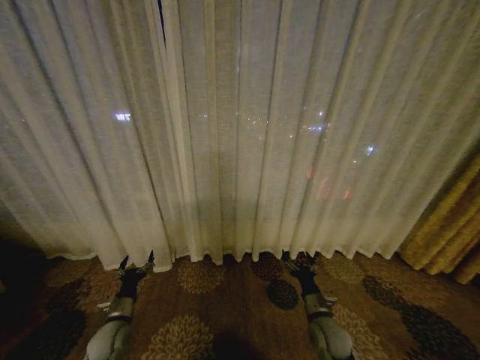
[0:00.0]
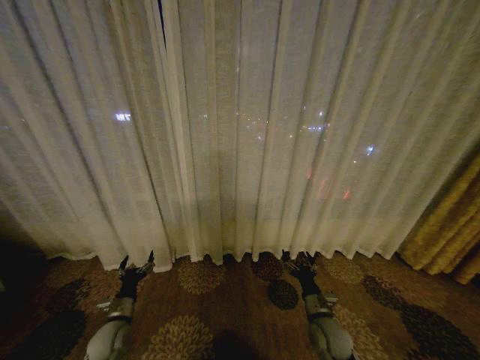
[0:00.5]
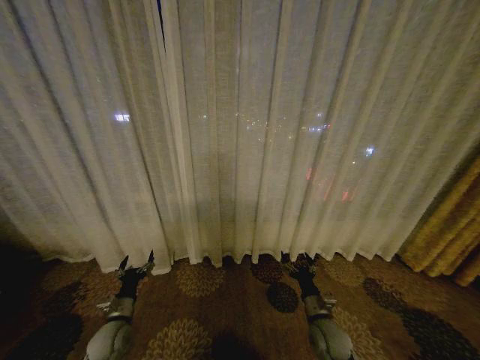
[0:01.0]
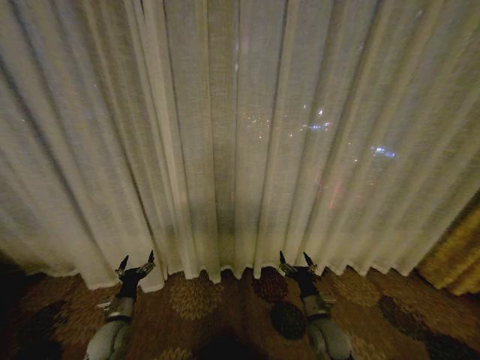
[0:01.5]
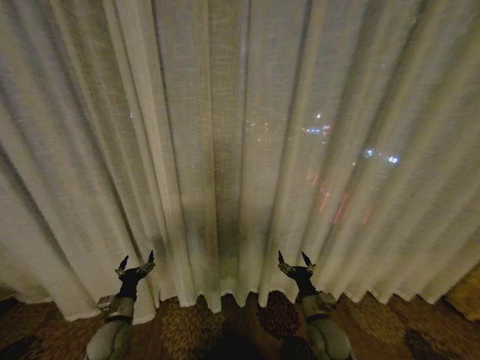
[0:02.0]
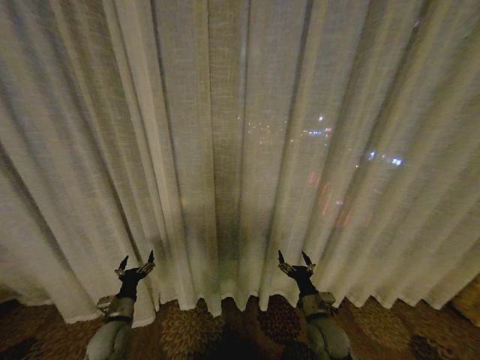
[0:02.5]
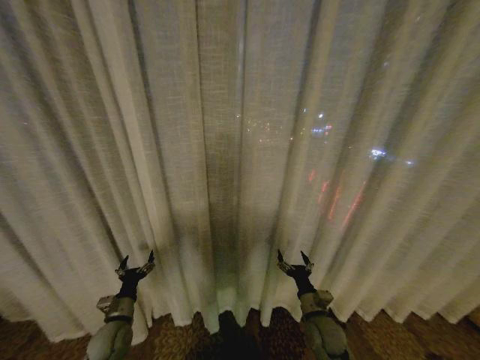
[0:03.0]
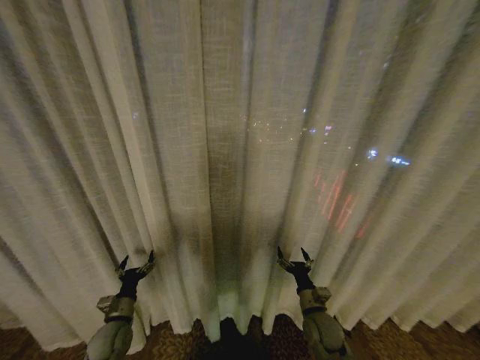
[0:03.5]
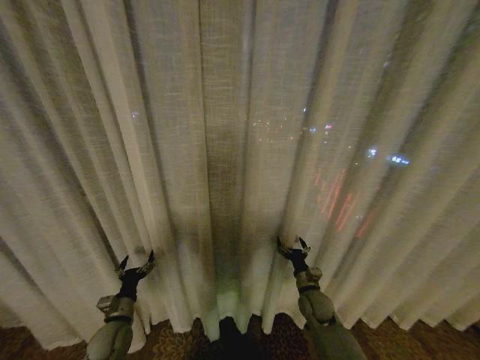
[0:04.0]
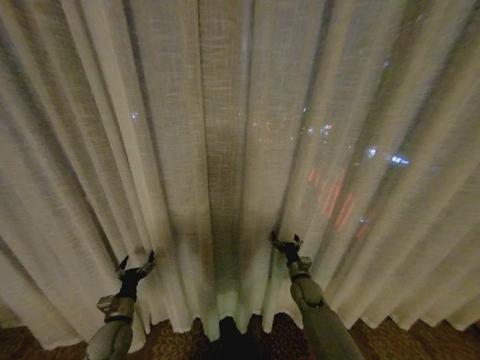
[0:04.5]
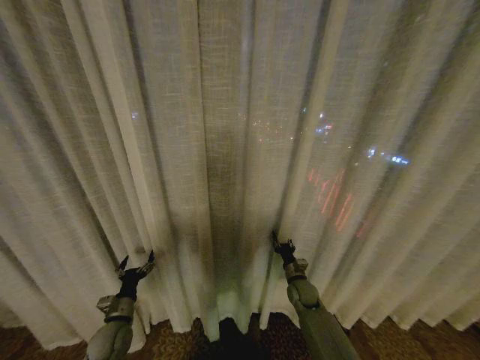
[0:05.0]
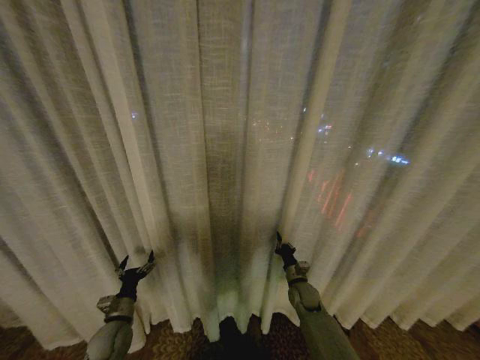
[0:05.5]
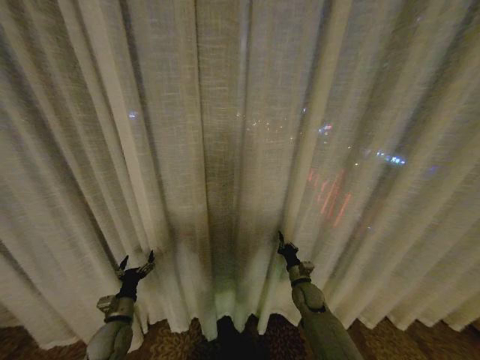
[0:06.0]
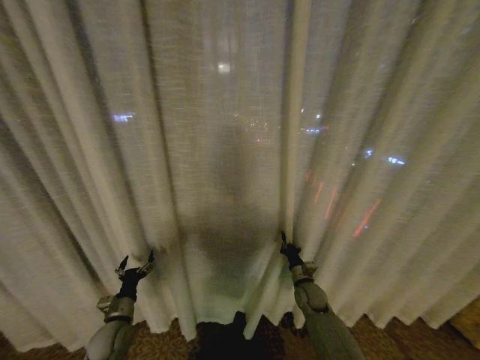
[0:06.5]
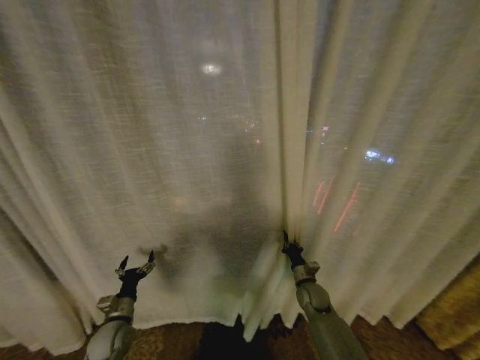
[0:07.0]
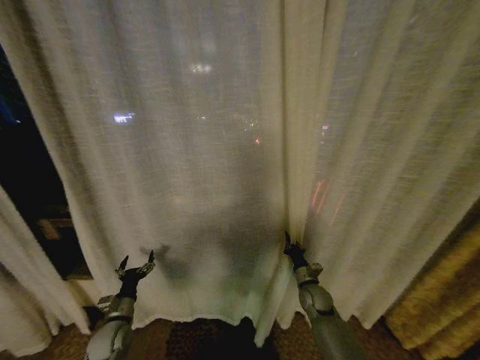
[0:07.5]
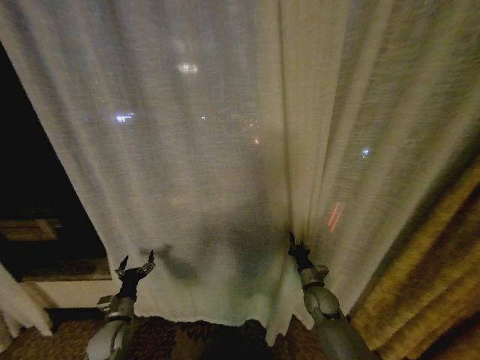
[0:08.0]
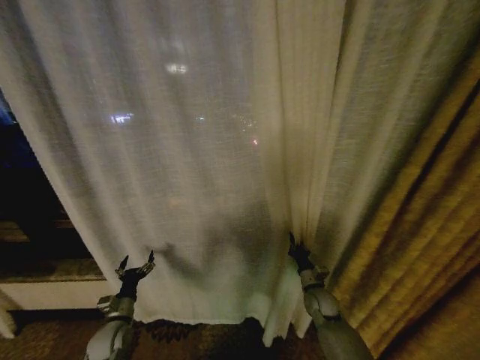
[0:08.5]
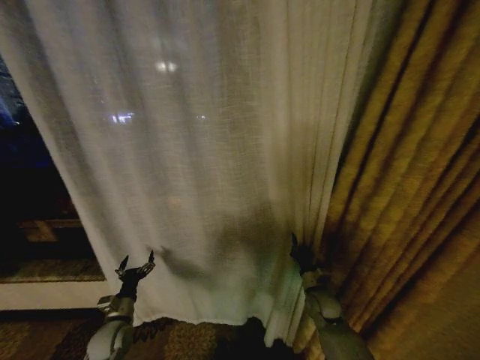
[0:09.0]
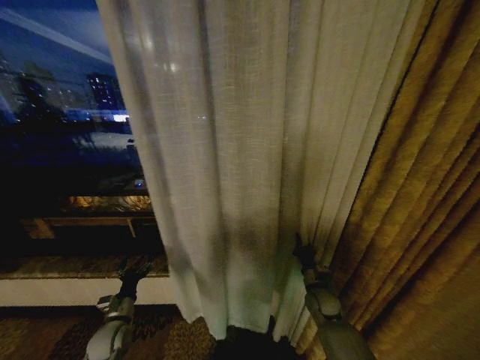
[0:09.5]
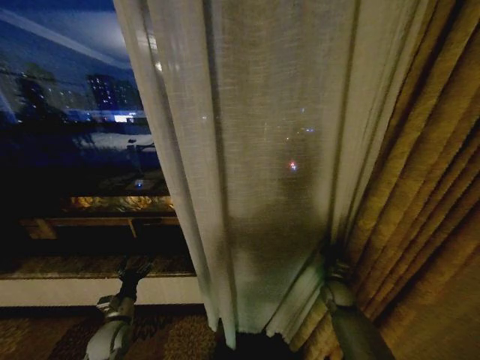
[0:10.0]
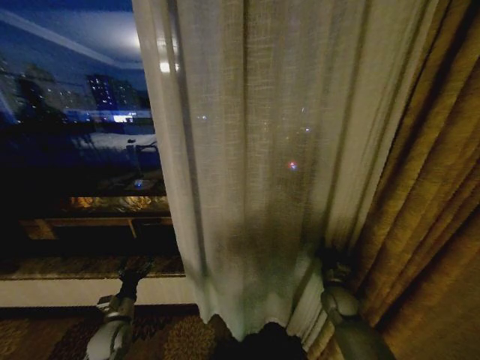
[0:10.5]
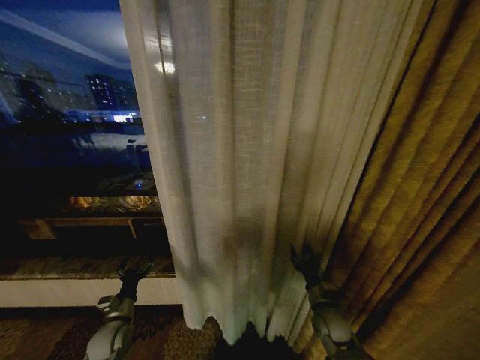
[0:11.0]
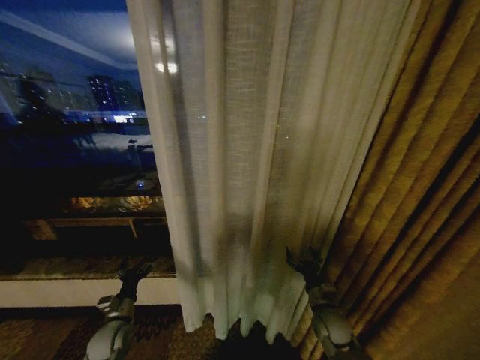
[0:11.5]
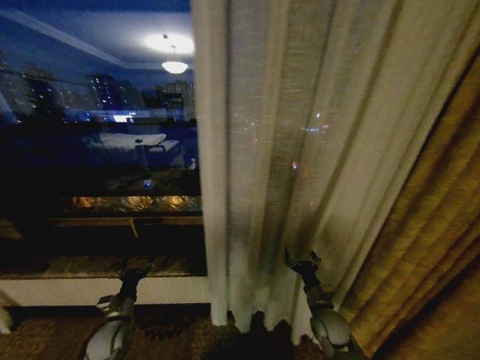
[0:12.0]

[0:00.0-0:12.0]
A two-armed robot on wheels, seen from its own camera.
Task of the whole recording: Open the curtains by pulling them apart, changing their state from closed to fully open.
0:02.0 to 0:04.0: The right gripper moves forward, roughly 10 cm.
0:04.0 to 0:06.0: The right gripper closes its fingers.
0:08.0 to 0:10.0: The right gripper heads to the right, covering about 10 cm.
0:10.0 to 0:12.0: The right gripper shifts approximately 15 cm backward and to the left, and opens.

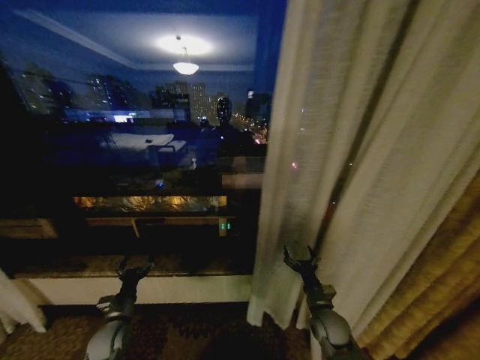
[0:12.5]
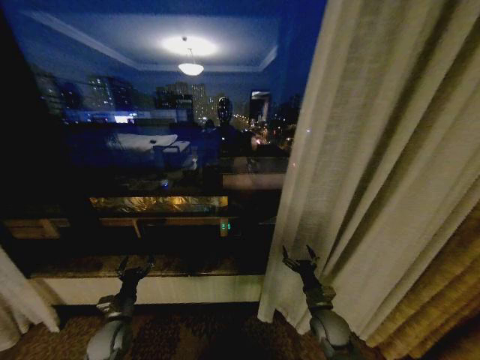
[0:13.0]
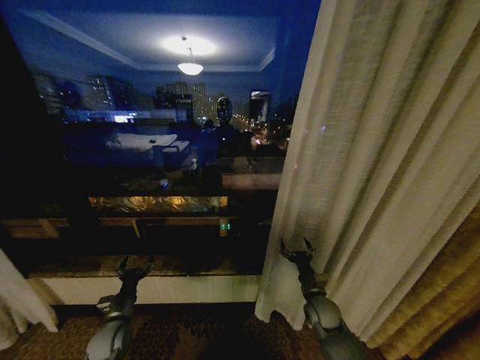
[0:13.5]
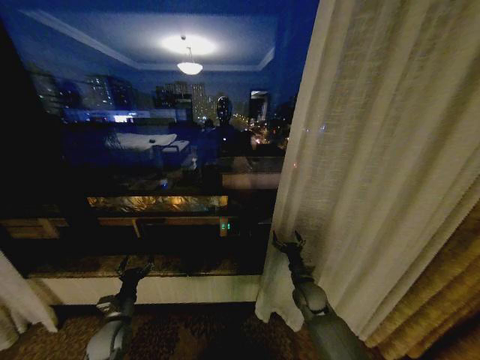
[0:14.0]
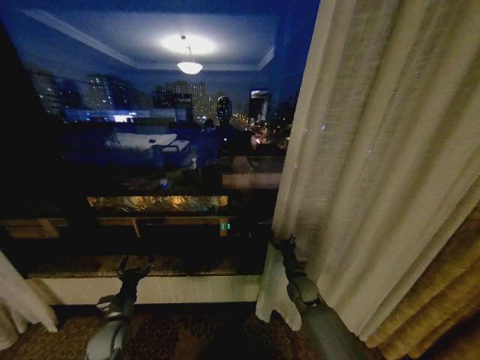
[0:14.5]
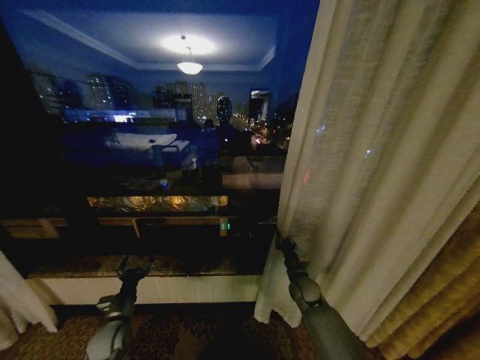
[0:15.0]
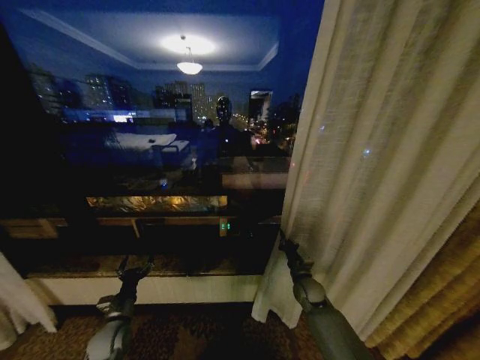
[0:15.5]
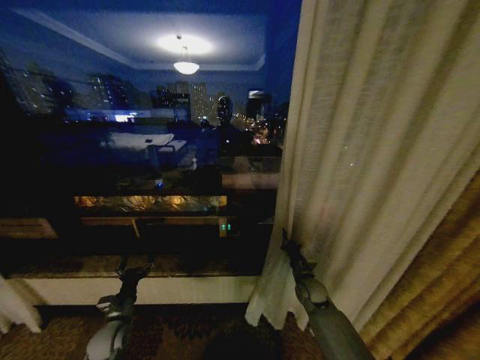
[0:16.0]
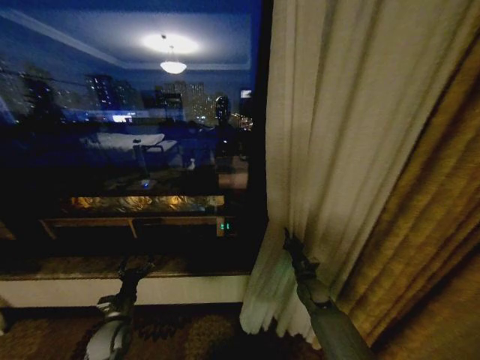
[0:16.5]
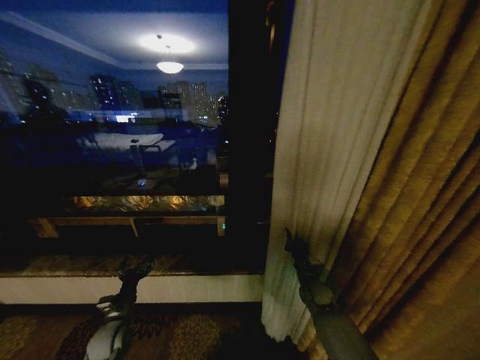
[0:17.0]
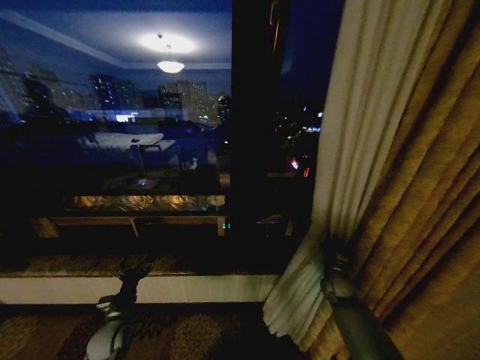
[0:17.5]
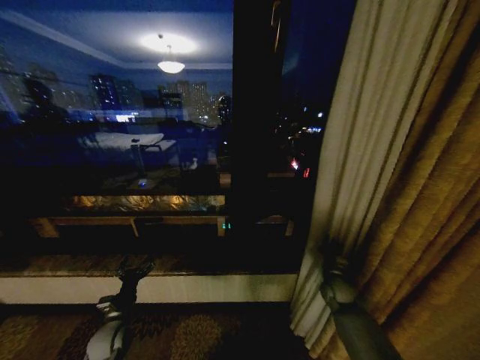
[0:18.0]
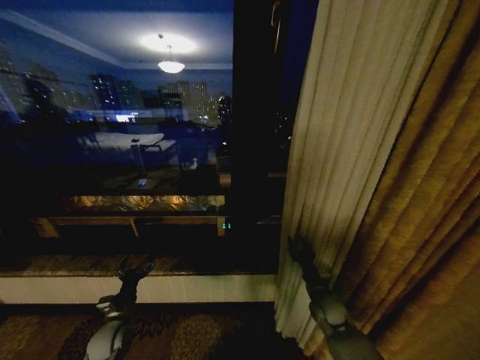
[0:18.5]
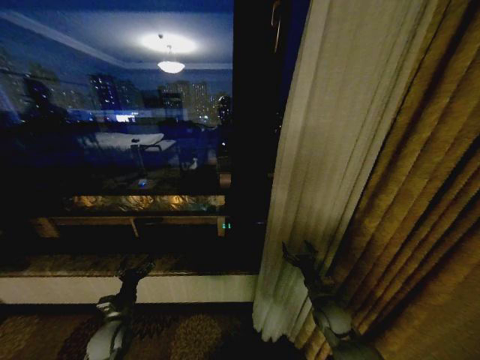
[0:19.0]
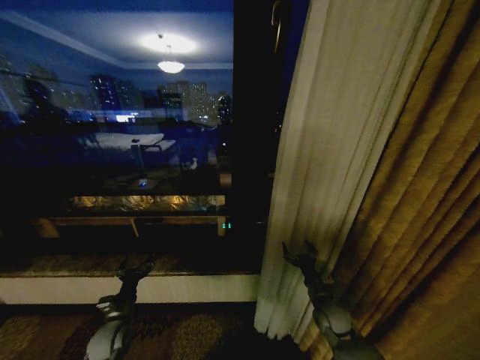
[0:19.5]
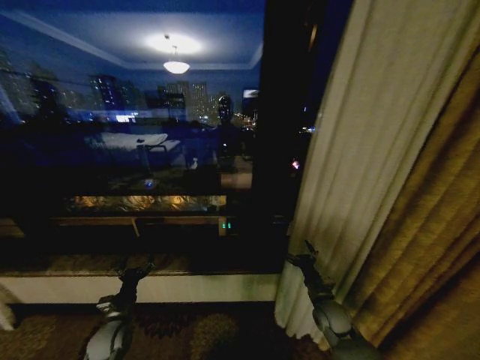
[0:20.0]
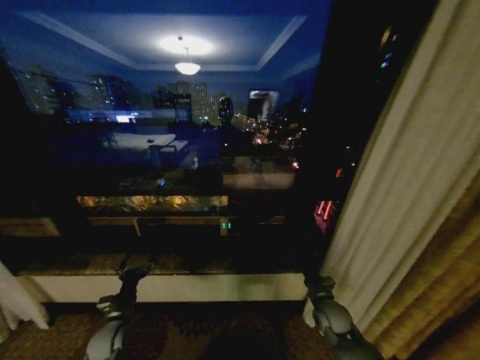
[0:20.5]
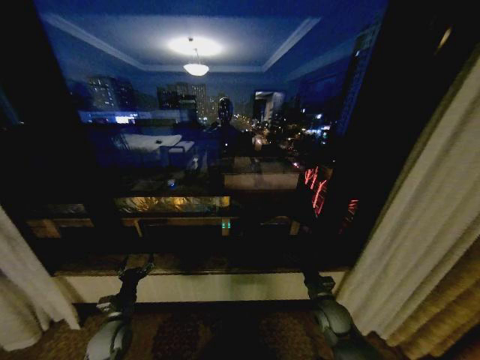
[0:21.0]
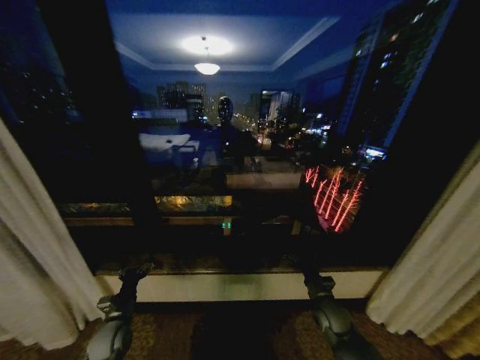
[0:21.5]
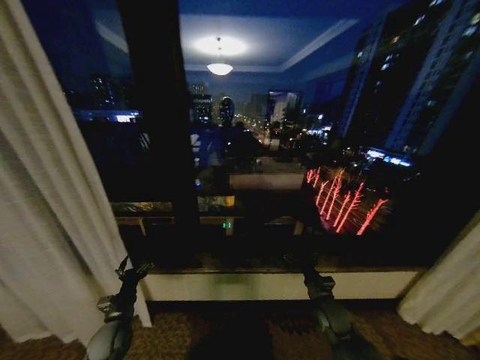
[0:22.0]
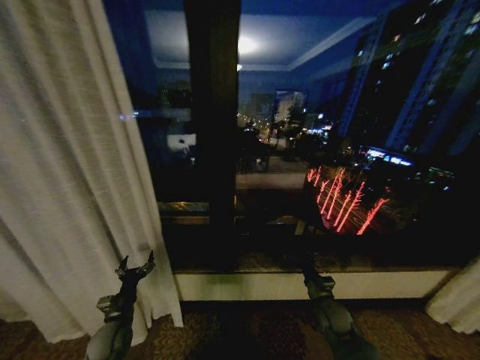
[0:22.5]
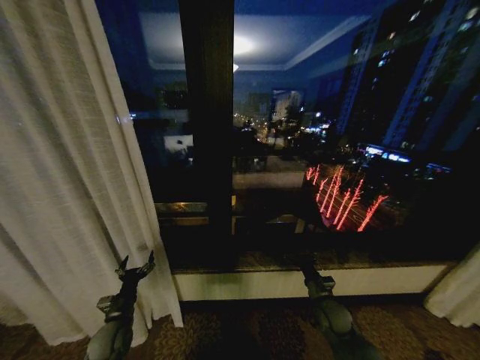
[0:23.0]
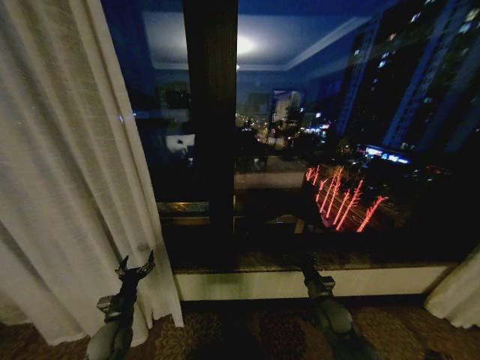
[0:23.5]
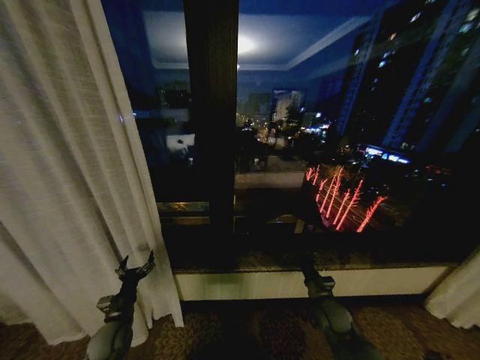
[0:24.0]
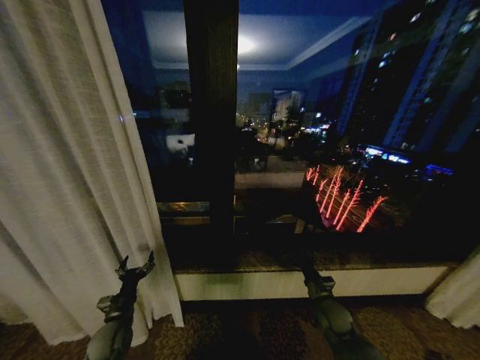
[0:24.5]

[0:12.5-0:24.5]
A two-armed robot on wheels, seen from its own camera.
Task of the whole recording: Open the curtains by pulling them apart, changing their state from closed to fully open.
0:12.5 to 0:14.5: The right gripper heads forward, covering roughly 10 cm.
0:14.5 to 0:16.5: The right gripper closes its fingers.
0:16.5 to 0:18.5: The right gripper moves backward, approximately 5 cm, travels to the right and back again, some 10 cm each way, and opens its fingers.
0:18.5 to 0:20.5: The right gripper opens.
0:22.5 to 0:24.5: Neither gripper changes place.

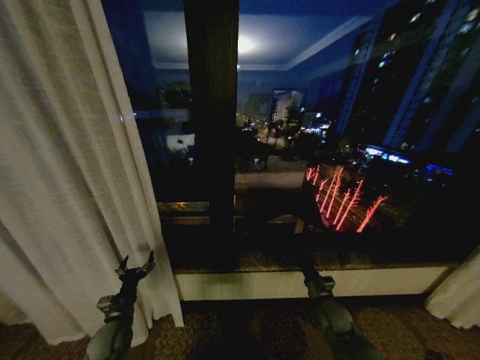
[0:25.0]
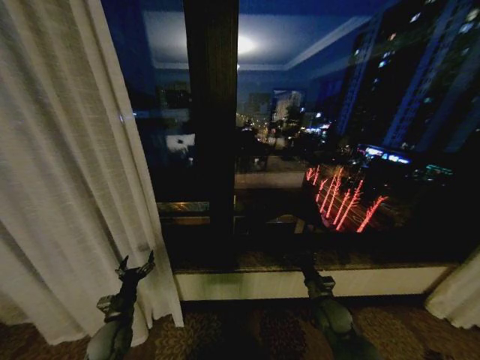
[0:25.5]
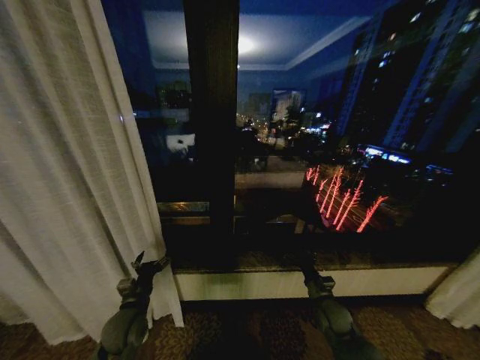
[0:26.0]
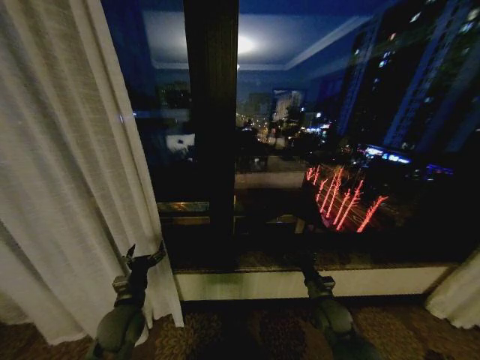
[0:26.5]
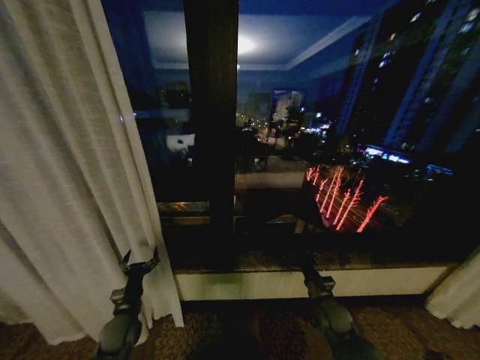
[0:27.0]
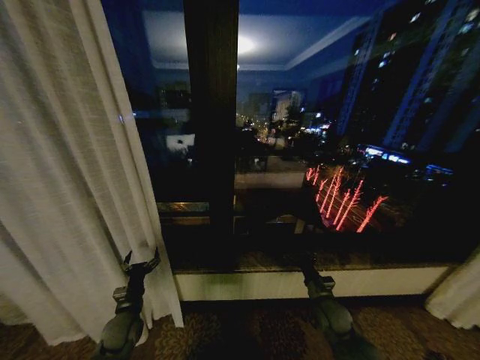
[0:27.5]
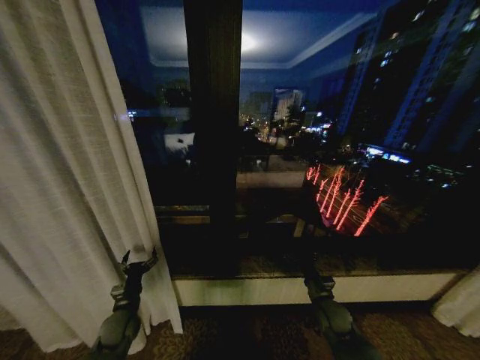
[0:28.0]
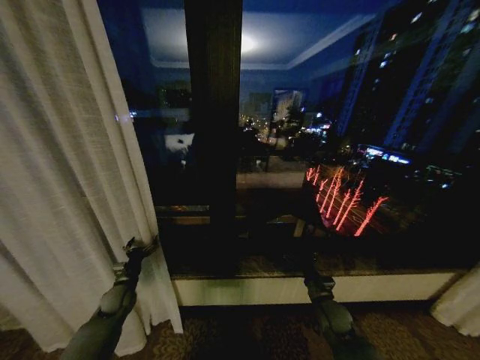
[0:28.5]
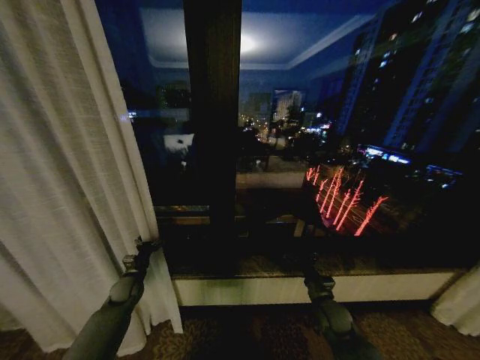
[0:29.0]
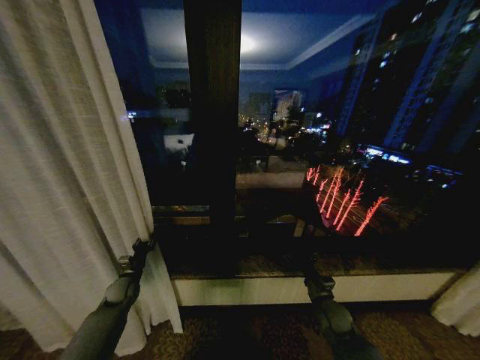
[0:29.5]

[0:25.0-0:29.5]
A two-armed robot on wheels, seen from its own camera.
Task of the whole recording: Open the curtains by pulling them apart, changing their state from closed to fully open.
0:25.0 to 0:27.0: The left gripper moves roughly 10 cm upward and comes back.
0:27.0 to 0:29.5: The left gripper shifts some 15 cm forward and to the left, and closes up.
